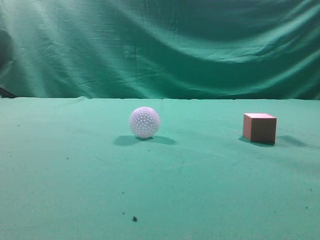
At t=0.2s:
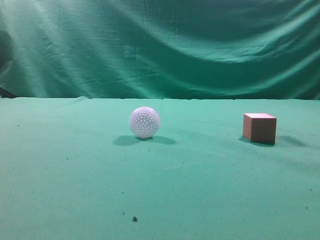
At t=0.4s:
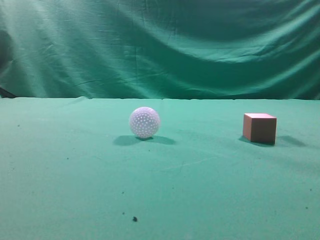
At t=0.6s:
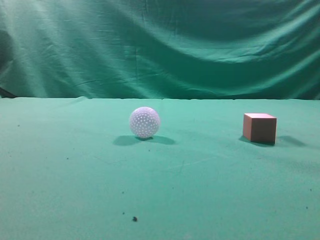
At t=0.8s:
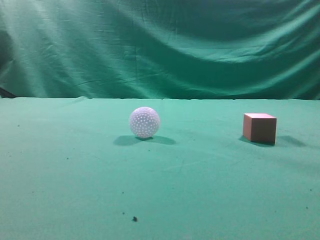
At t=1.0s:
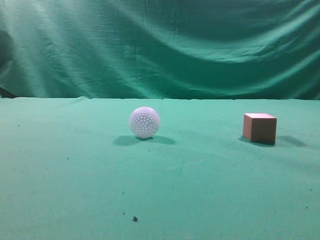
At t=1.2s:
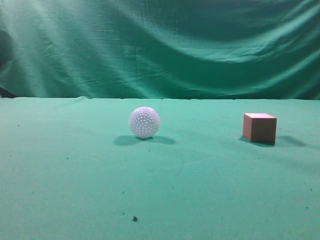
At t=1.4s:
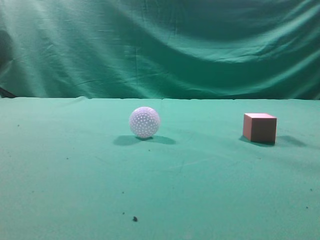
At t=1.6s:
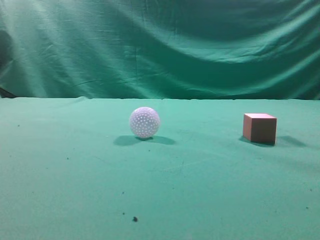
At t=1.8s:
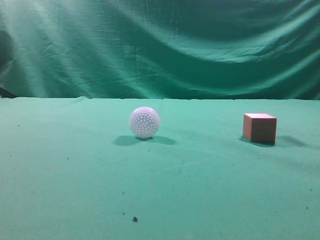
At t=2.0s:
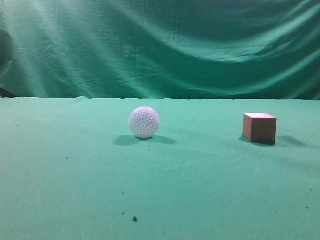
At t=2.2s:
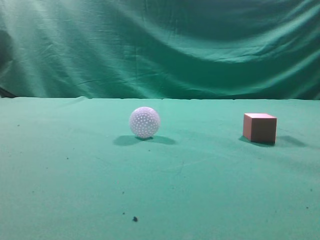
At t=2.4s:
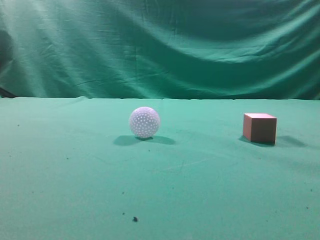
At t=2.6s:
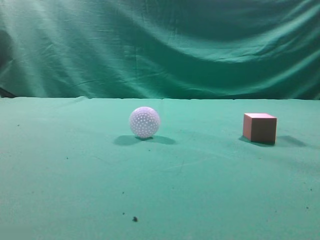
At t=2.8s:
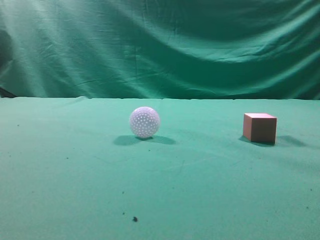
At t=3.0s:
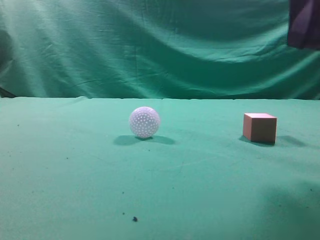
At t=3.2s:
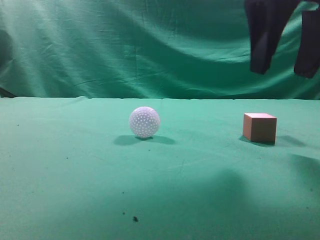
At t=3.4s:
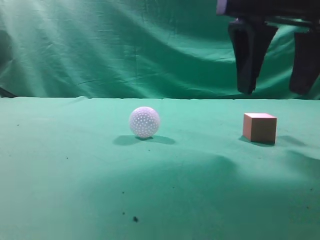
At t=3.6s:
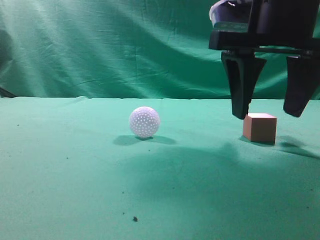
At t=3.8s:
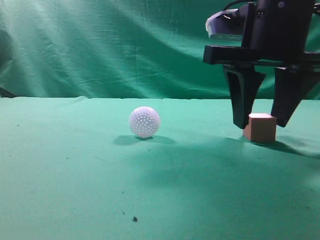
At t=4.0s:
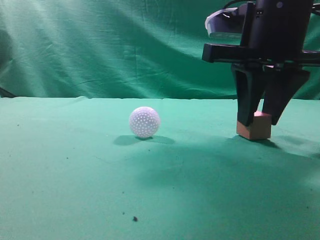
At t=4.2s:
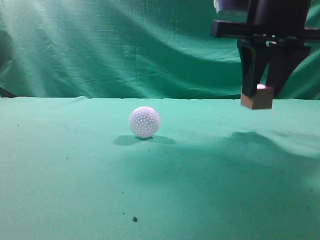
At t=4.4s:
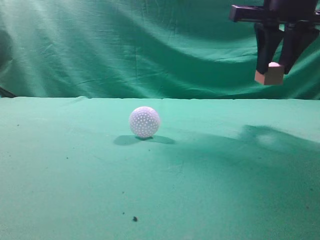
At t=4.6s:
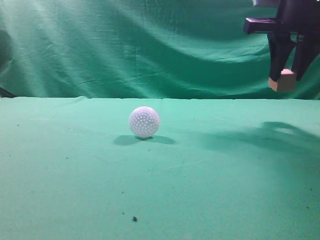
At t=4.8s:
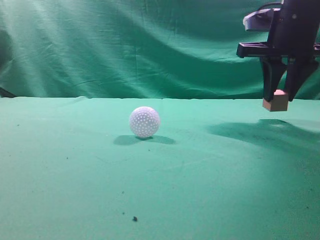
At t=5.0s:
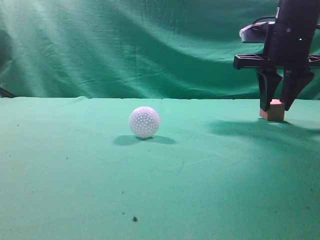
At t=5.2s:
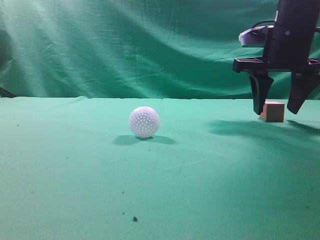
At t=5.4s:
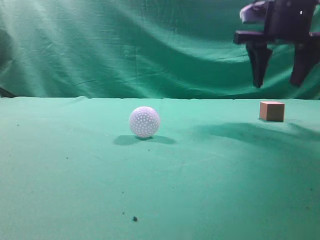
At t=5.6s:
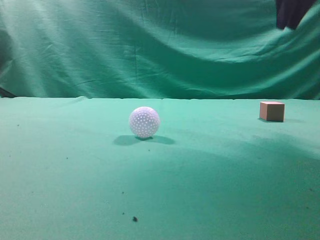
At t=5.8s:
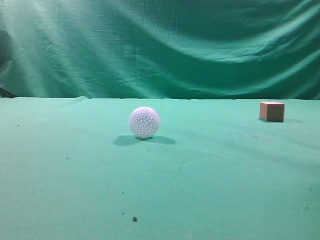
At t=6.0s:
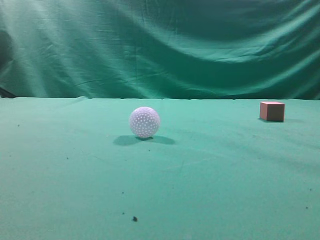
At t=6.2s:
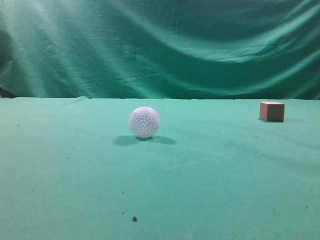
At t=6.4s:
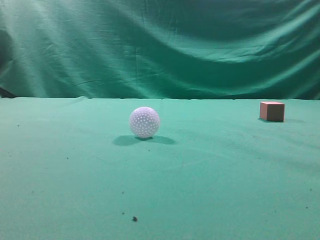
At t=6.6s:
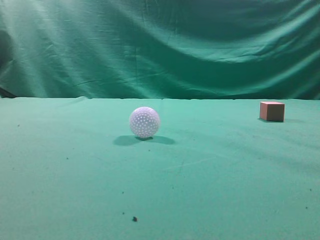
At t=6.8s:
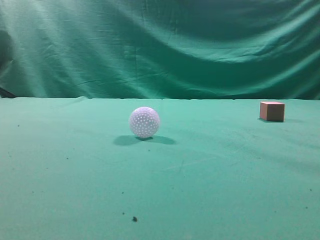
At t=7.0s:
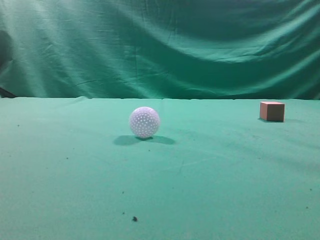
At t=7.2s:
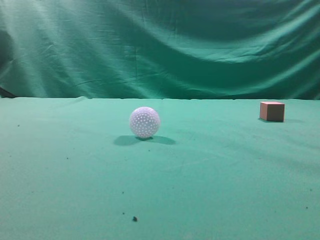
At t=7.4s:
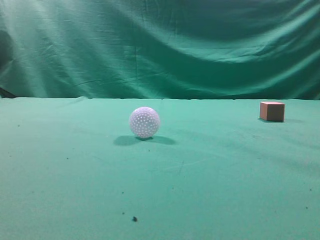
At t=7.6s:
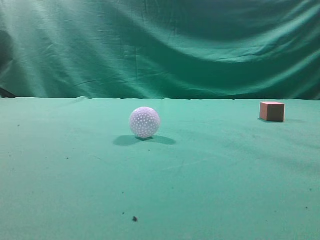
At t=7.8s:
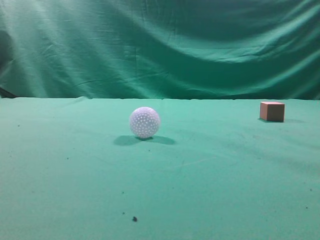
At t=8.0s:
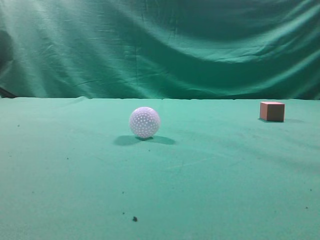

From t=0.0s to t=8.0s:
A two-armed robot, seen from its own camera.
Task of the whole recording: pick up the cube block and place it in another position on the table.
Step, from t=0.0s to t=4.0s: Pick up the small cube.
Step, from t=4.2s to t=5.2s: Place the small cube on the ahead of the table.
From t=1.6s to t=3.2s: The right gripper moves forward and to the left, approximately 25 cm, and opens up.
From t=3.2s to t=4.8s: The right gripper is displaced forward and to the right by some 15 cm, and closes up.
From t=4.8s to t=6.4s: The right gripper shifts about 30 cm backward and upward, and closes its fingers.
